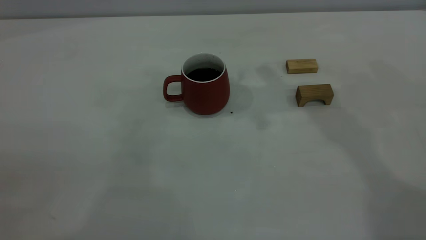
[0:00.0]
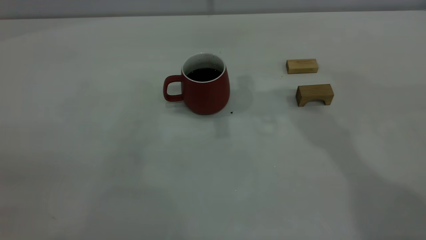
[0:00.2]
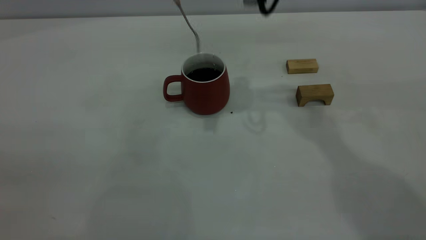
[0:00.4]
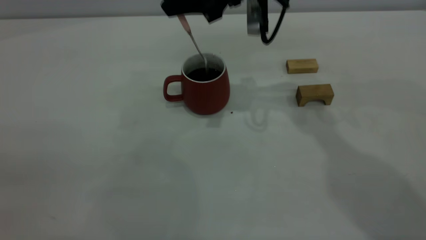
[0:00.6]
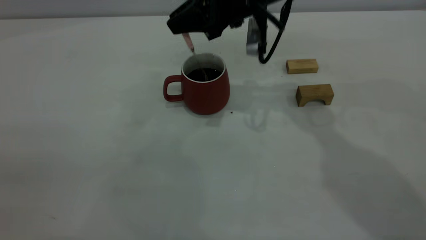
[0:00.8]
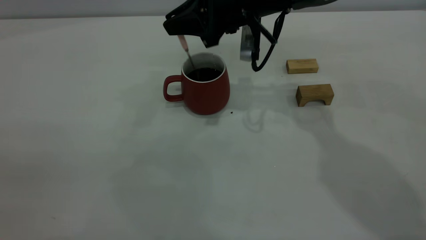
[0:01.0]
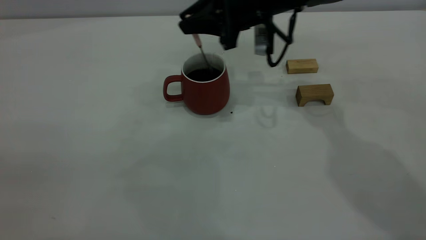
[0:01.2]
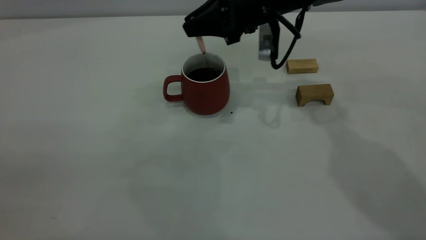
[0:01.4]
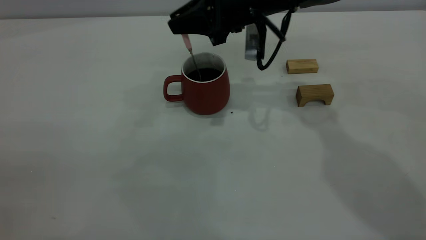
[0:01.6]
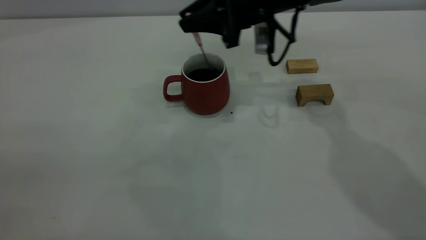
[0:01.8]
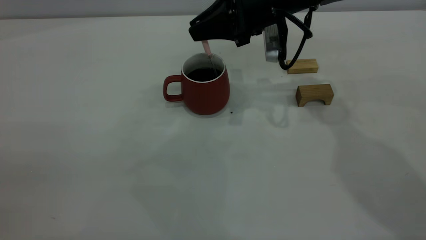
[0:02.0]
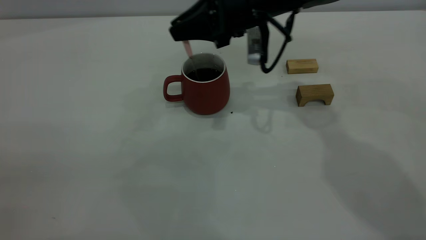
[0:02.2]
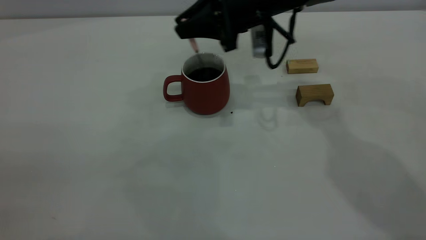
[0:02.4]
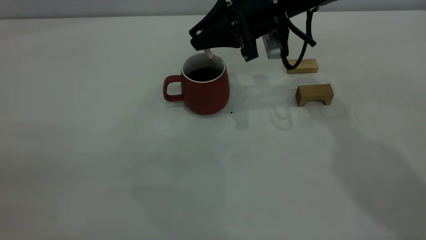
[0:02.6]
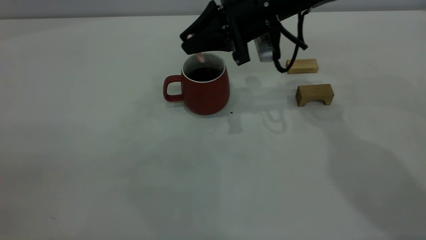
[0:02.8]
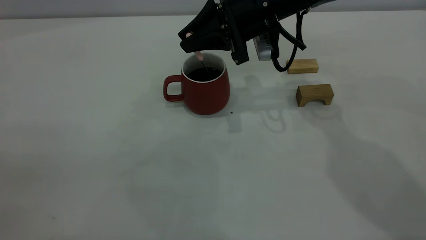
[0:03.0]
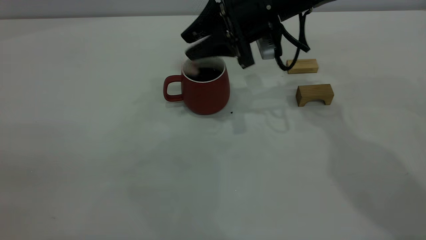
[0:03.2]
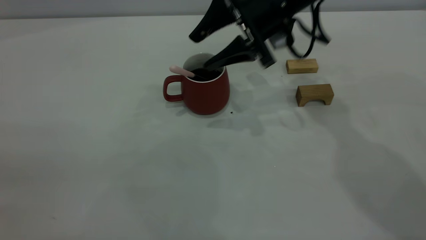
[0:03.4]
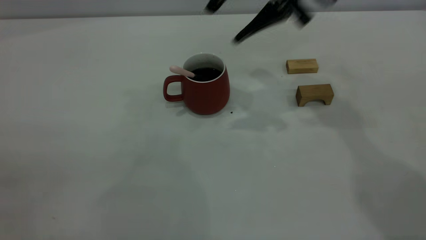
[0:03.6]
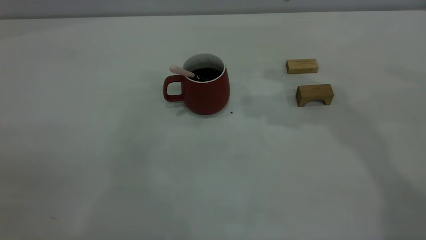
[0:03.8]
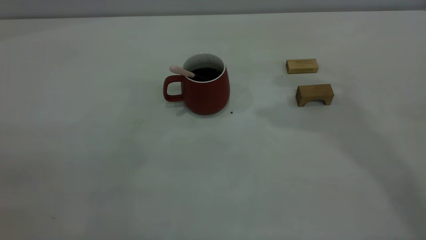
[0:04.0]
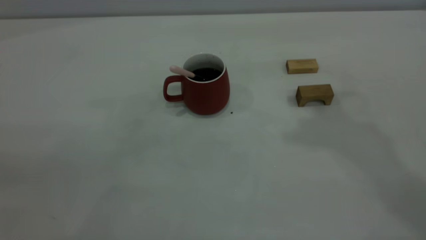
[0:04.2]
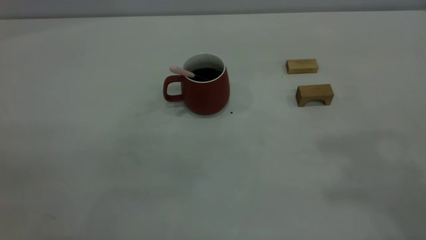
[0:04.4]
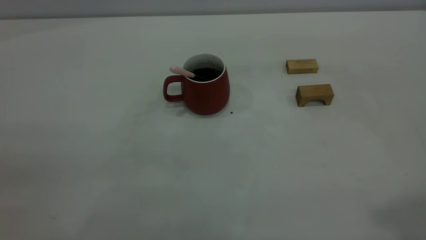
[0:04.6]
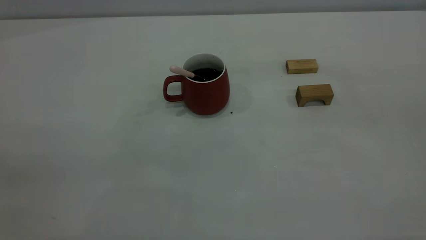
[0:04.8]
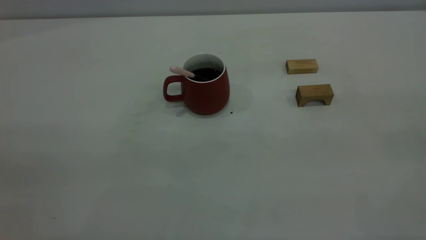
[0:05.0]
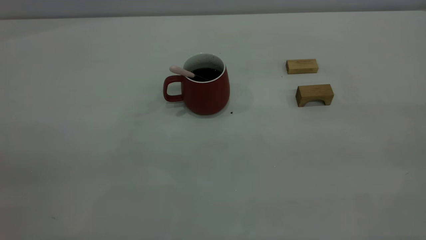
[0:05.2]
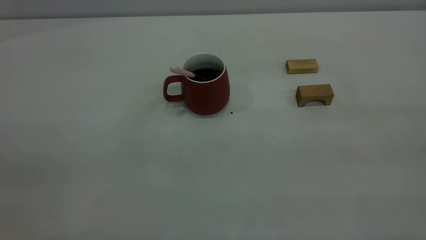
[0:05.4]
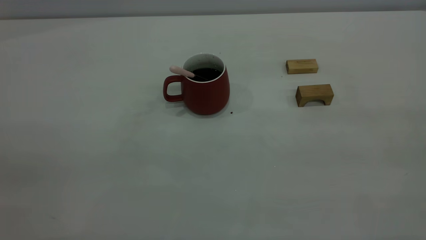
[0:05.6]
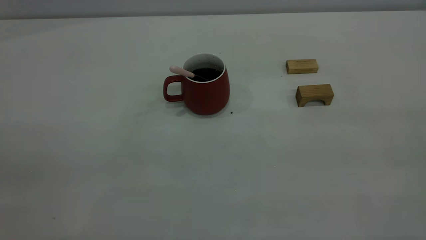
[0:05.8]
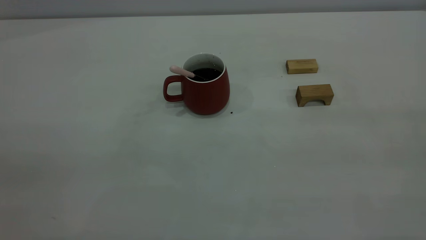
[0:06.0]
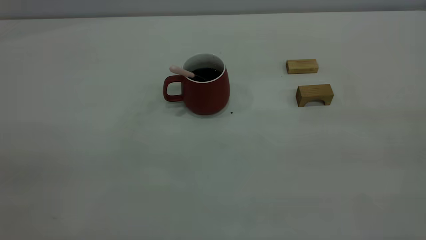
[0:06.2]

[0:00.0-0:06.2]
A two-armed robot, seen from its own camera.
Step, 0:00.0 to 0:03.4: Stir the coffee in the cup.
0:00.0 to 0:01.6: The right gripper moves downward, about 15 cm.
0:01.6 to 0:03.2: The right gripper opens.
0:03.2 to 0:04.6: The right gripper moves backward, upward and to the right, roughly 50 cm, and closes up.
